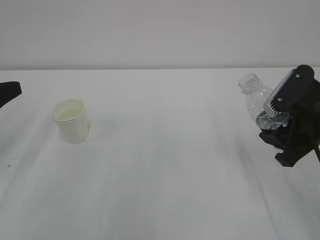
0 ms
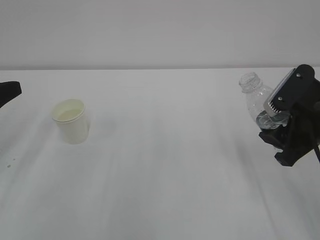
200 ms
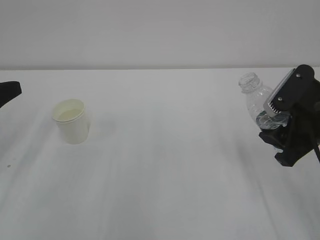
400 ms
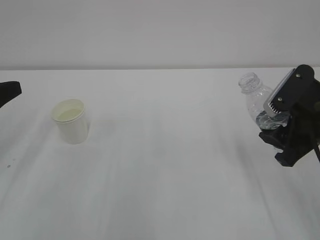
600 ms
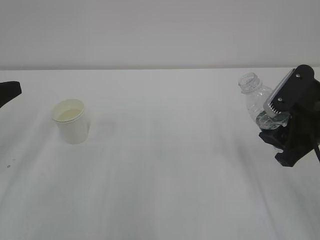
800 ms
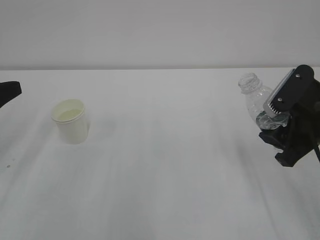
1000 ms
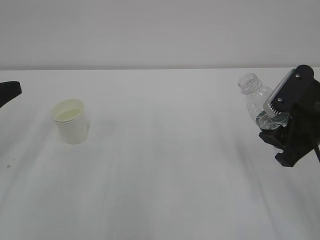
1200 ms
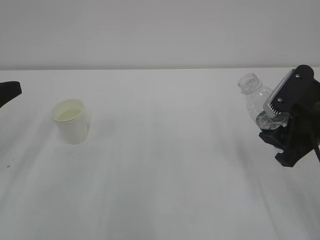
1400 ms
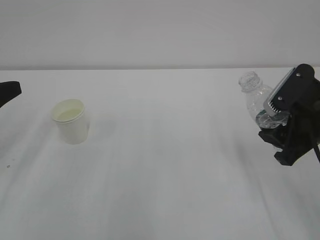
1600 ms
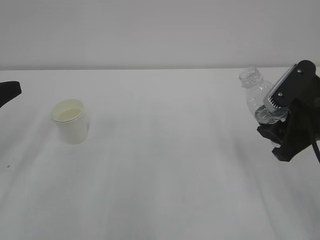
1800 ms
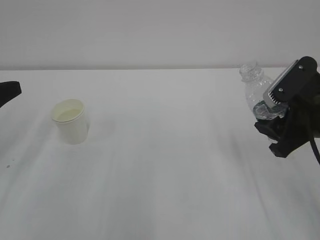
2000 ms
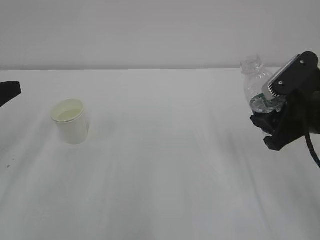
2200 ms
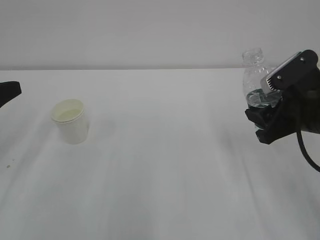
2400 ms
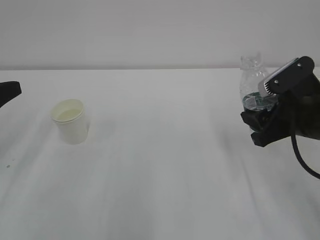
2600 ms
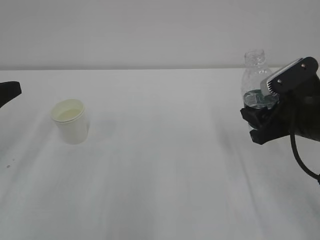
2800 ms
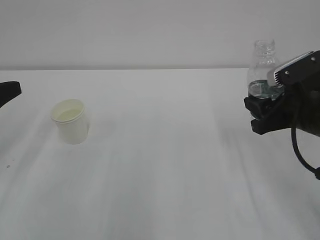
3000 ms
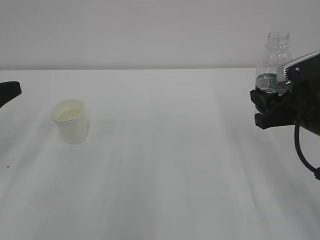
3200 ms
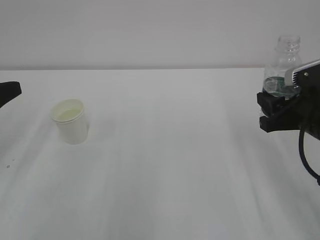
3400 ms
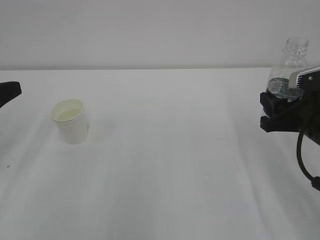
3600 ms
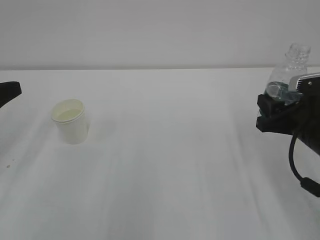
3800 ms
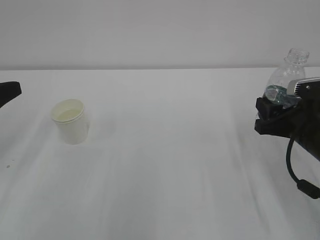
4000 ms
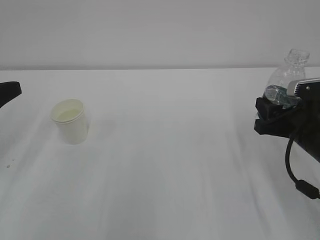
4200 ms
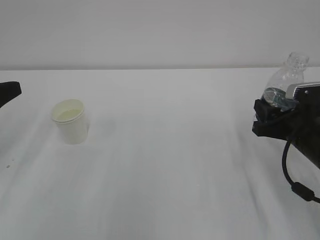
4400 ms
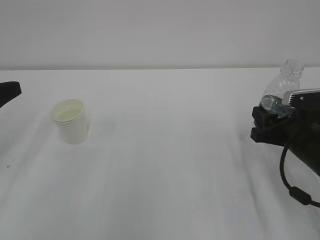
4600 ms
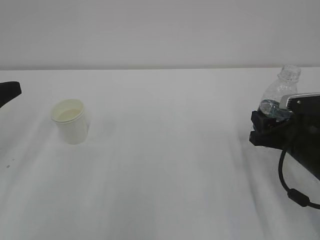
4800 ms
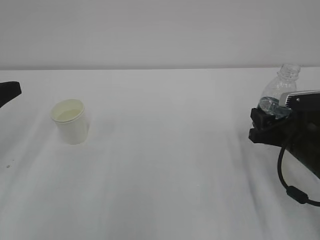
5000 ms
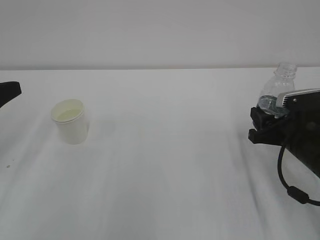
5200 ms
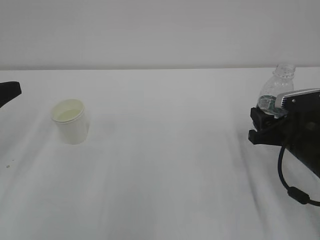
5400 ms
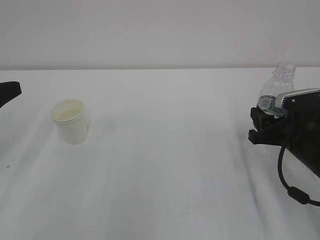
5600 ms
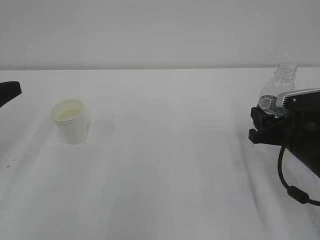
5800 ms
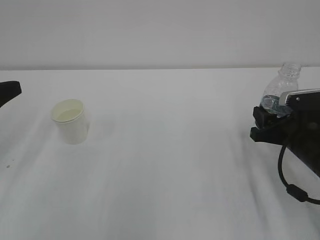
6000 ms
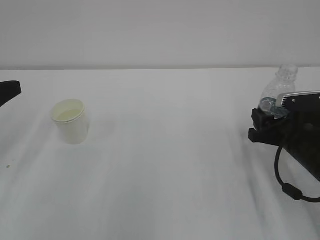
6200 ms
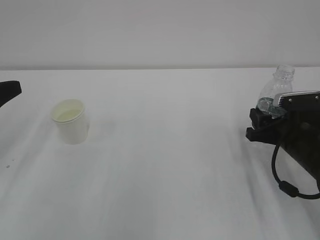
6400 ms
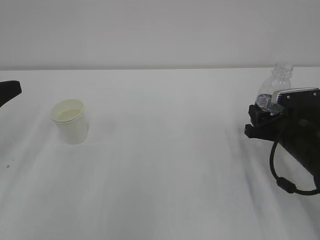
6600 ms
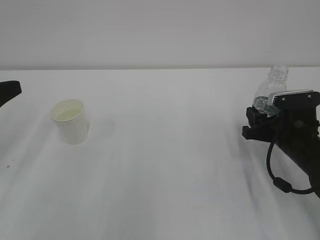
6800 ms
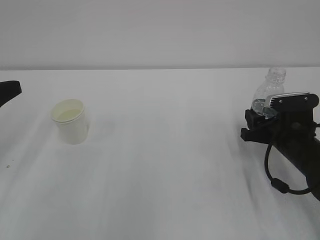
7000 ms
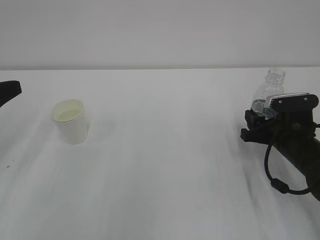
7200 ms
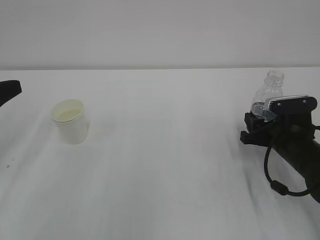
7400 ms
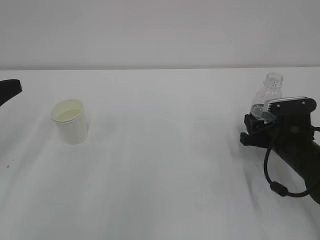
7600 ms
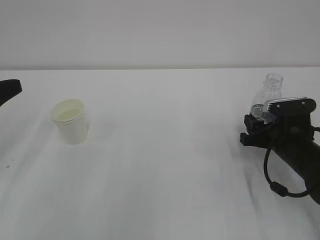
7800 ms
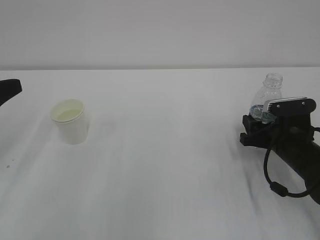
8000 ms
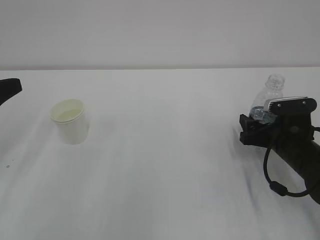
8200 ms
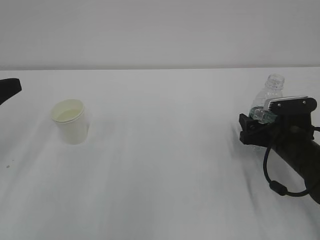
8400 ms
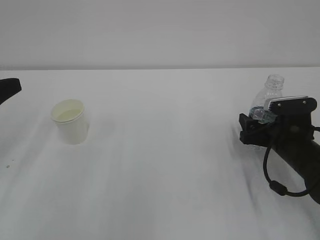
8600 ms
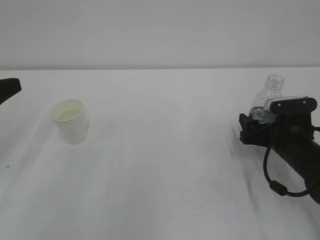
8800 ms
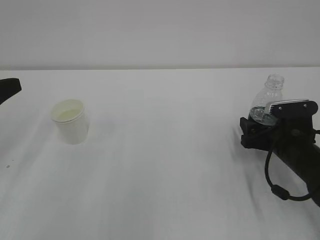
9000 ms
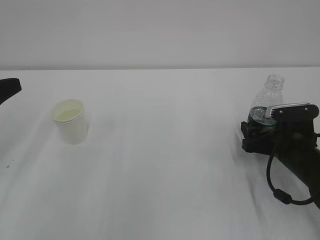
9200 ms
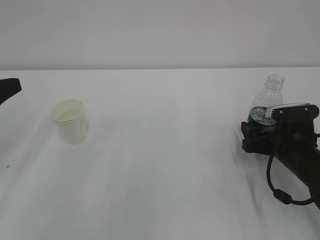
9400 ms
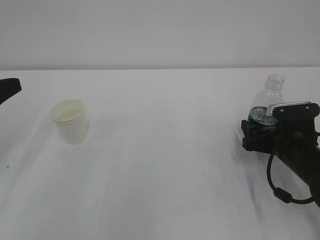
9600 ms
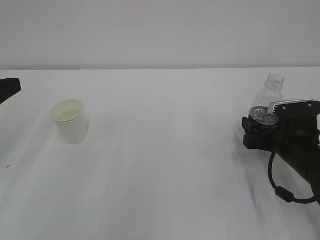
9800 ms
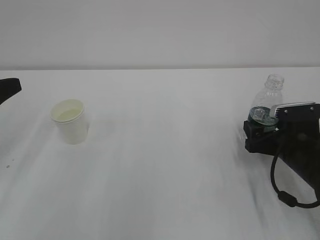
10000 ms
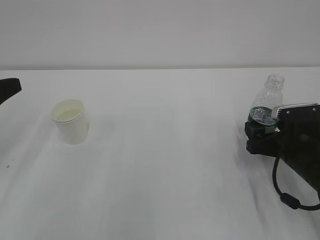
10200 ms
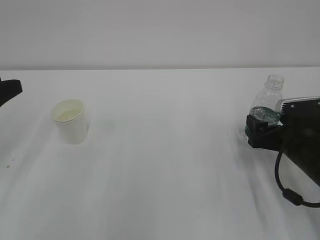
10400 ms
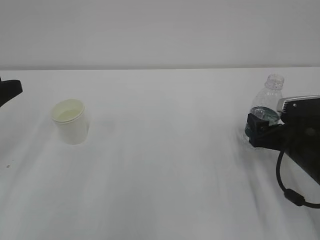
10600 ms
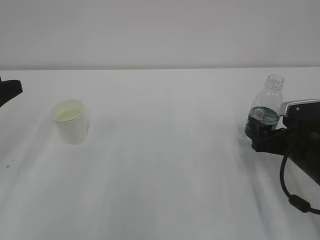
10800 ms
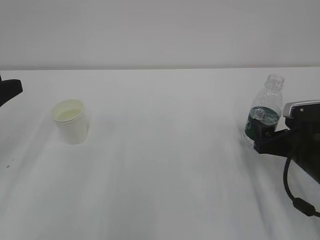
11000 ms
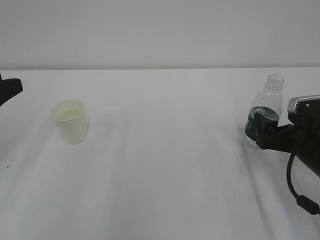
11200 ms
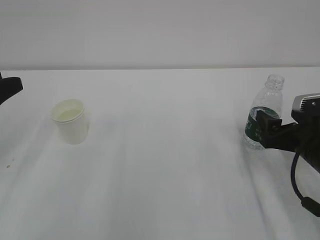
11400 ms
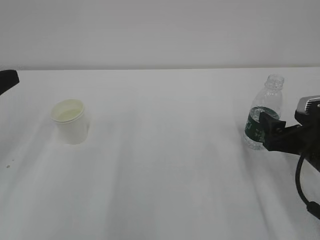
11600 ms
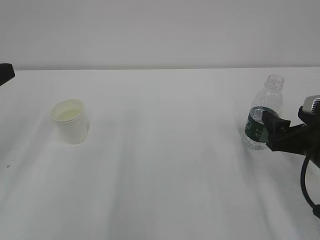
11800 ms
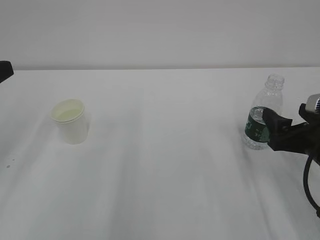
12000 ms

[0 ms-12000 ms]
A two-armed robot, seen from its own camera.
Step, 0 ms to 8800 ms: Put the bottle down with right gripper.
0 ms to 1600 ms: Neither gripper changes place.
3000 ms to 4400 ms: The right gripper travels downward by about 5 cm.
4400 ms to 6000 ms: The grippers move only a little.
6000 ms to 7600 ms: There are only small adjustments of the grippers.
7600 ms to 9000 ms: The right gripper opens its fingers.
9000 ms to 10400 ms: The grippers move only a little.
10400 ms to 12000 ms: The right gripper ends up approximately 5 cm from where it was.

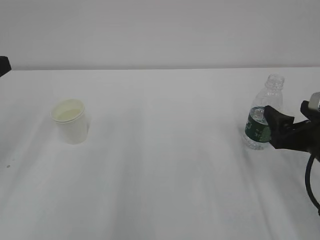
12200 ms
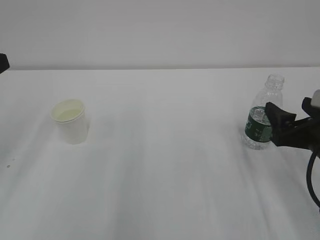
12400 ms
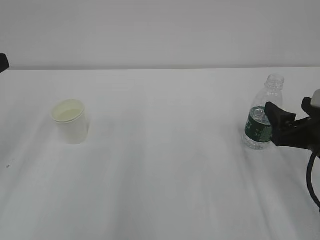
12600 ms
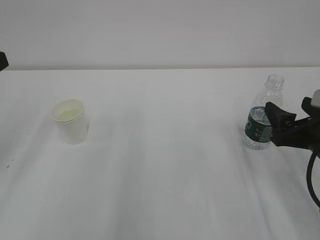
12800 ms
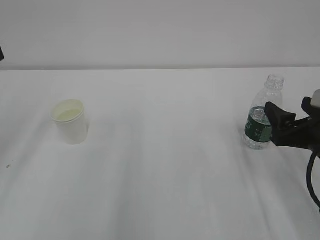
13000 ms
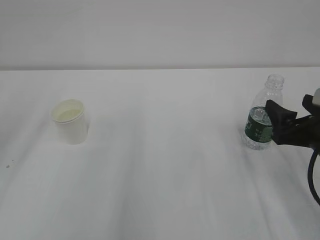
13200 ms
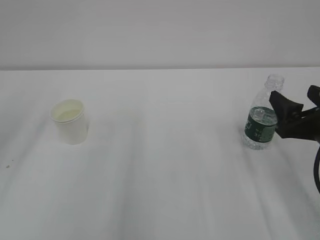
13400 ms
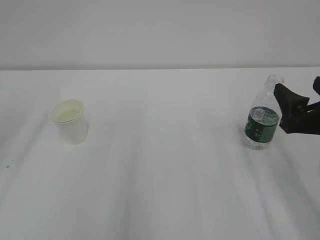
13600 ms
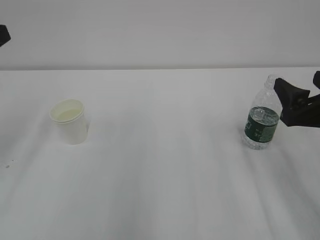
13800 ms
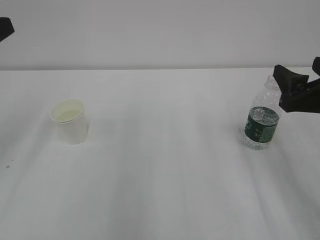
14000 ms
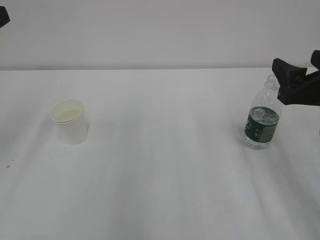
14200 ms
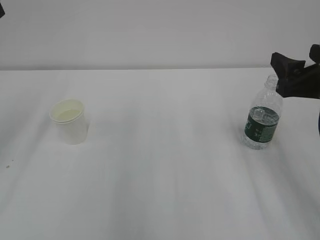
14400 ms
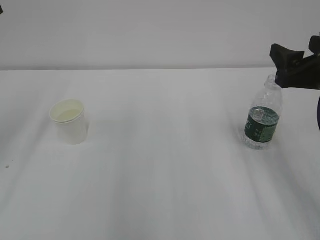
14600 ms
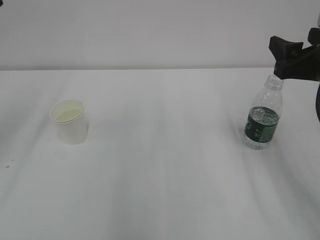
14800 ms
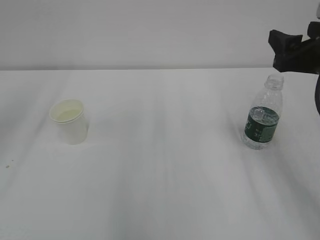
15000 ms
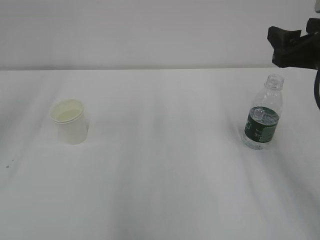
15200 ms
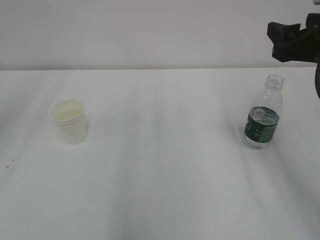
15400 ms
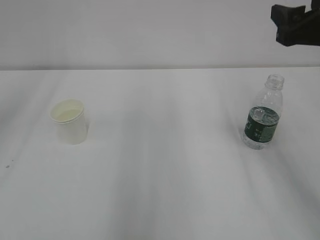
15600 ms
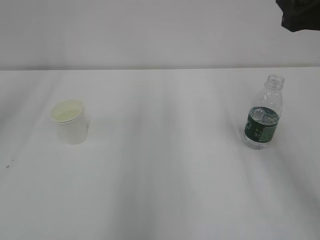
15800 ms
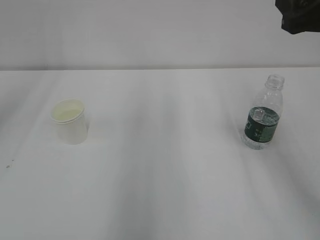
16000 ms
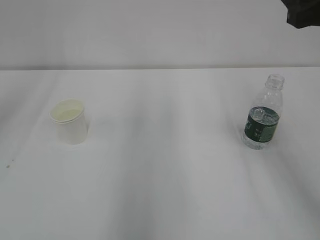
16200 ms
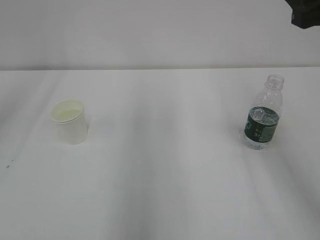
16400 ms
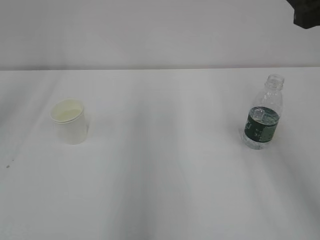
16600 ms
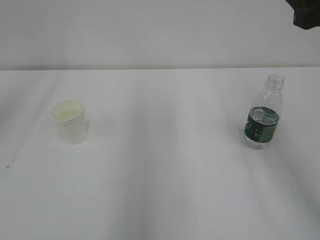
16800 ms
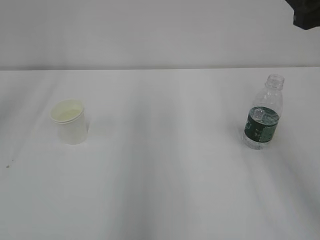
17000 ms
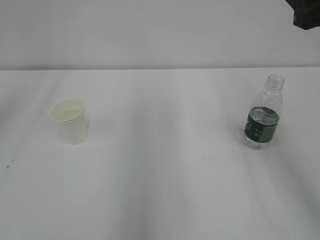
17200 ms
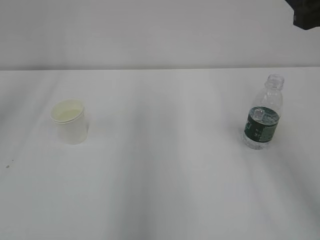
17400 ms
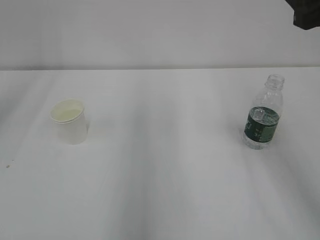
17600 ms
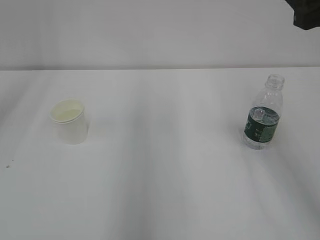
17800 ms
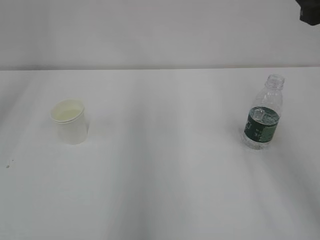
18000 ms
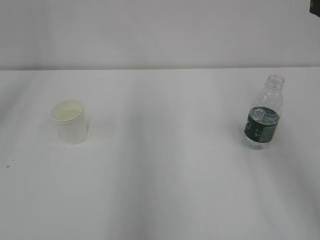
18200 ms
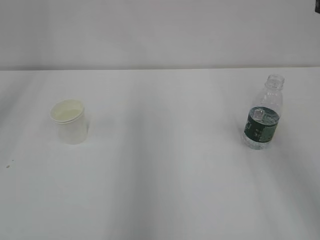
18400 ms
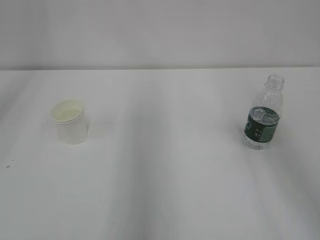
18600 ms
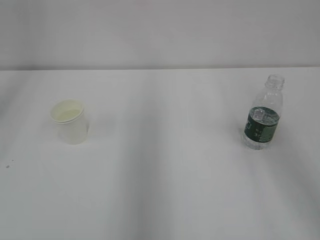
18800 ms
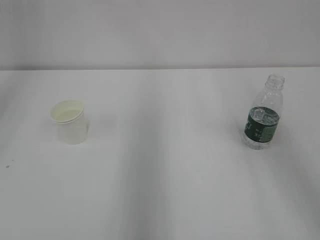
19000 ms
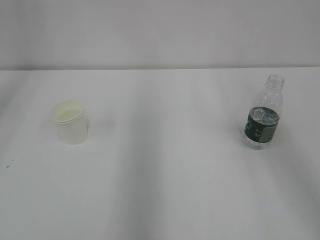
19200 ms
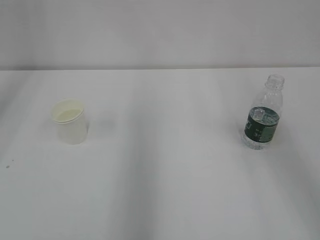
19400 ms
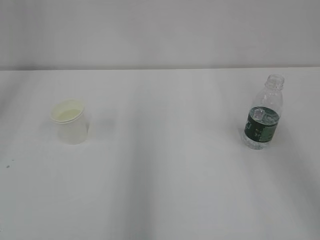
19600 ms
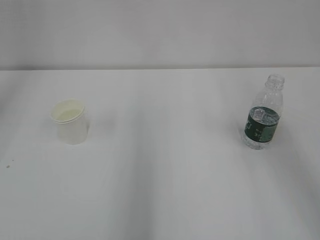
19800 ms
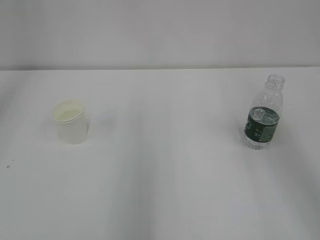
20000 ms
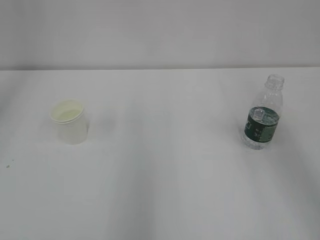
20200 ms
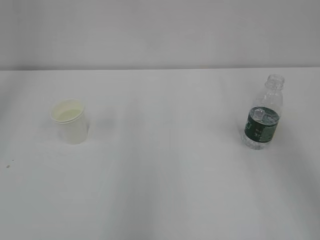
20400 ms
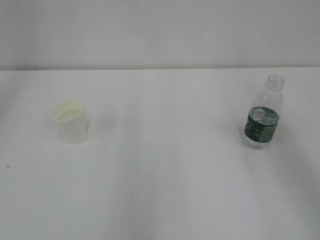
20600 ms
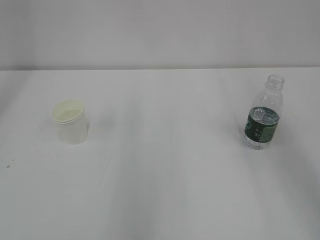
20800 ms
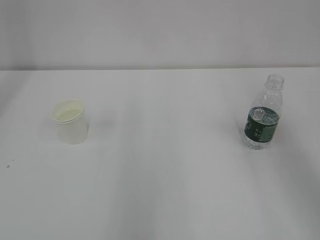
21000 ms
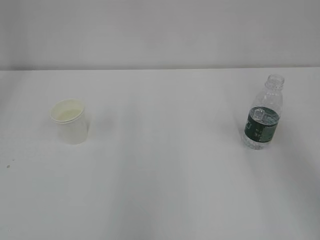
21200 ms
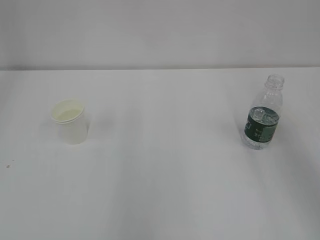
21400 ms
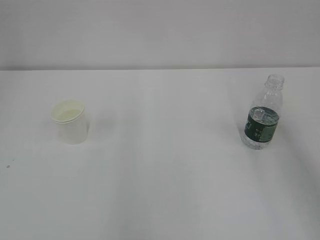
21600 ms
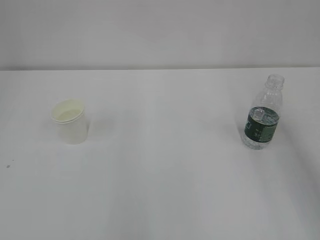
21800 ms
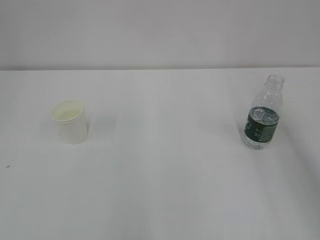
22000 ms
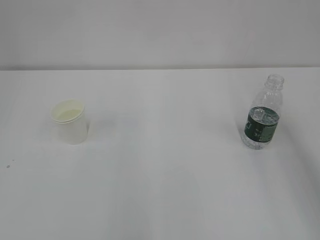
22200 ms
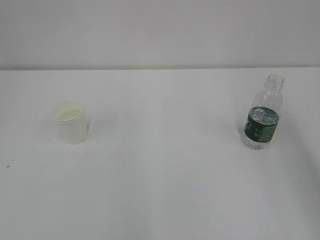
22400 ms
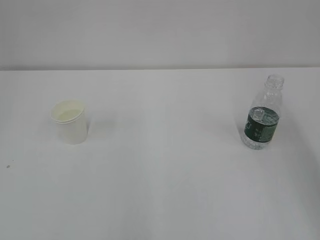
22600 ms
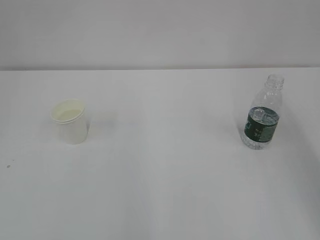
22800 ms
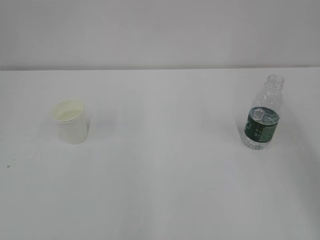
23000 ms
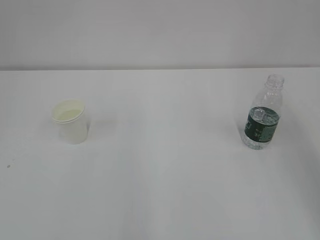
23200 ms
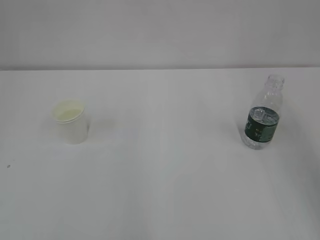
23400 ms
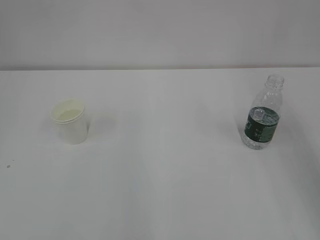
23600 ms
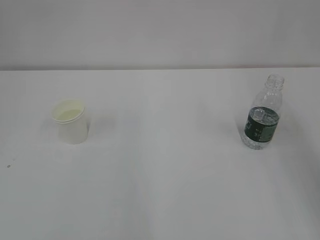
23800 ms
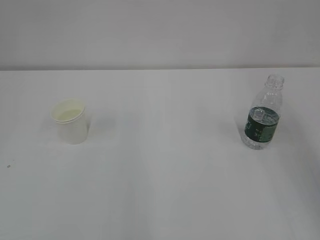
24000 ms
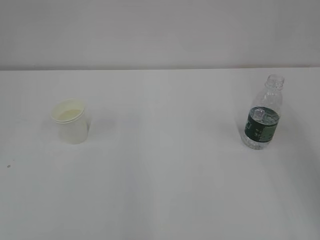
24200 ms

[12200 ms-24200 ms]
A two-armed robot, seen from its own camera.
12200 ms to 13800 ms: The right gripper goes roughly 5 cm upward.
13800 ms to 15200 ms: The right gripper heads upward and forward, covering some 10 cm.
15200 ms to 16600 ms: The right gripper heads upward, covering roughly 5 cm.
